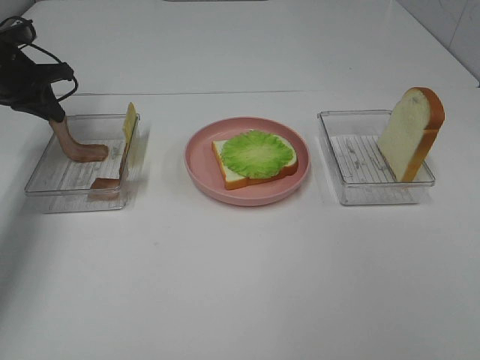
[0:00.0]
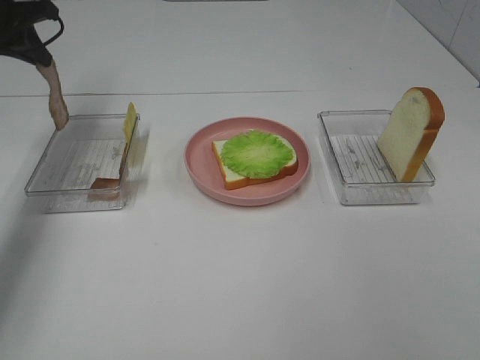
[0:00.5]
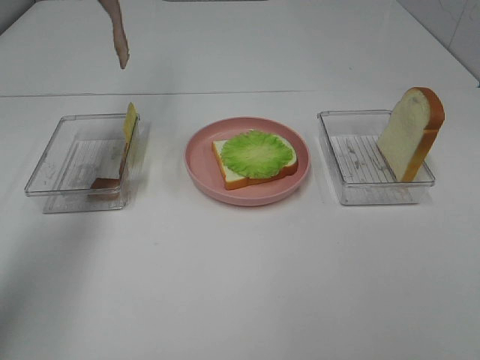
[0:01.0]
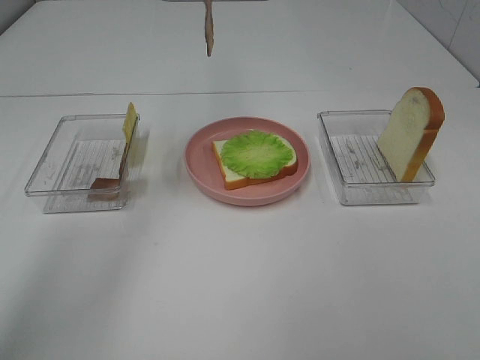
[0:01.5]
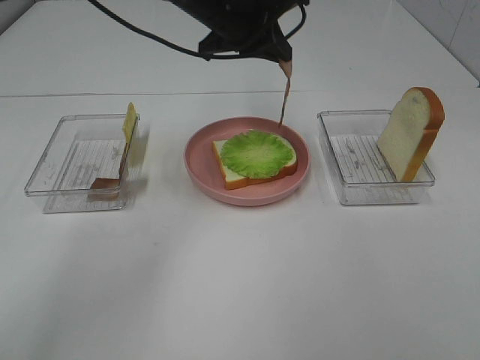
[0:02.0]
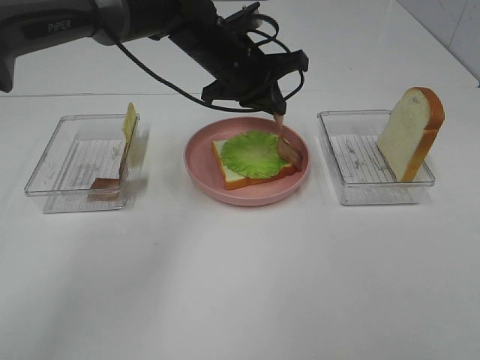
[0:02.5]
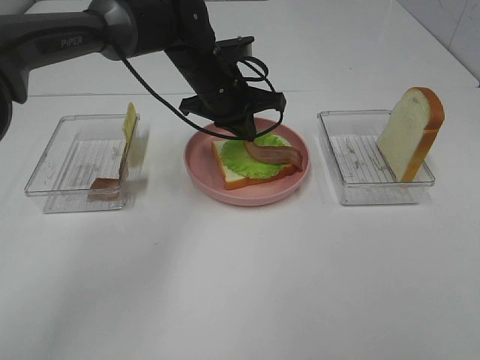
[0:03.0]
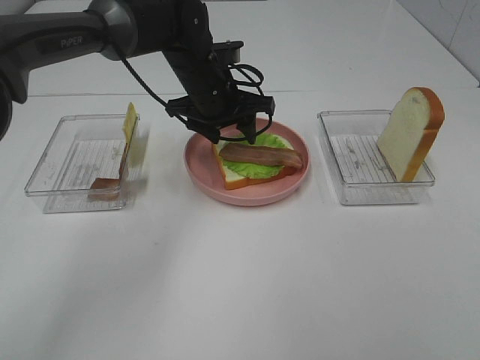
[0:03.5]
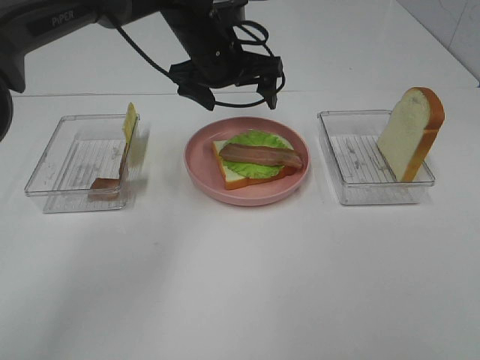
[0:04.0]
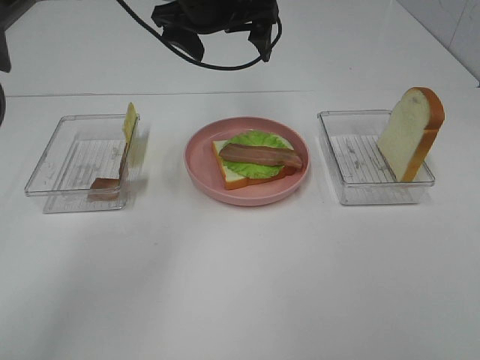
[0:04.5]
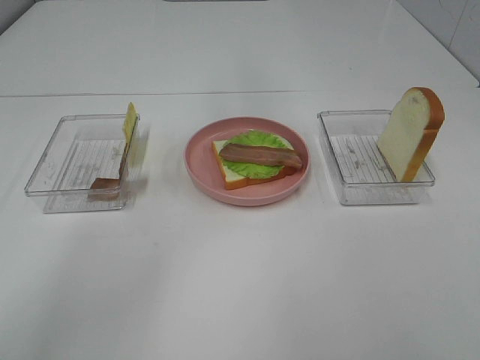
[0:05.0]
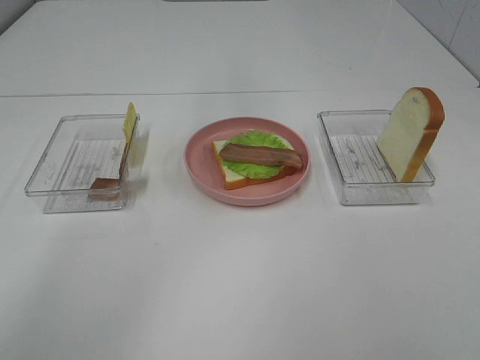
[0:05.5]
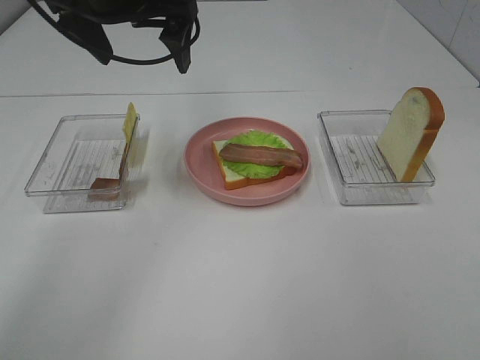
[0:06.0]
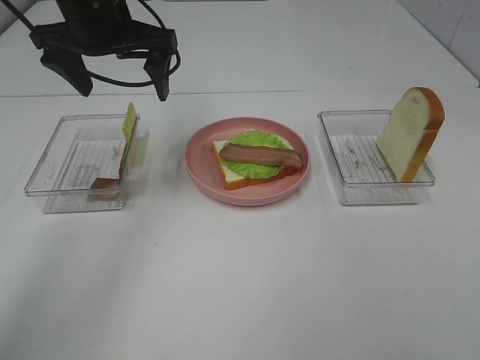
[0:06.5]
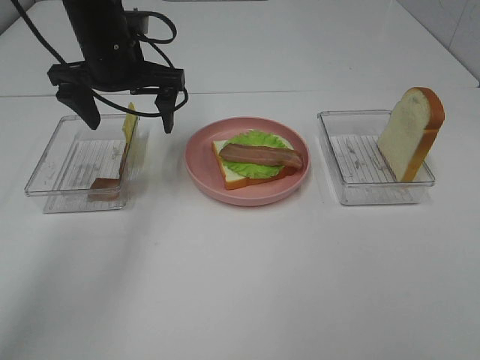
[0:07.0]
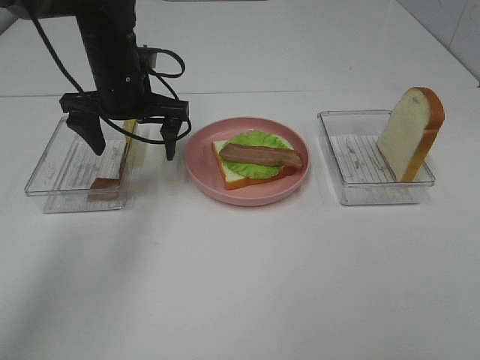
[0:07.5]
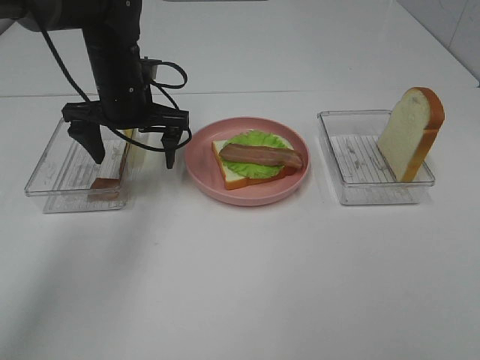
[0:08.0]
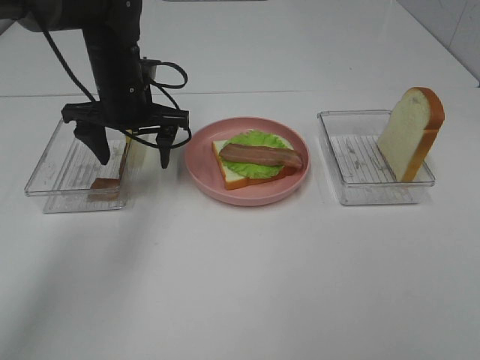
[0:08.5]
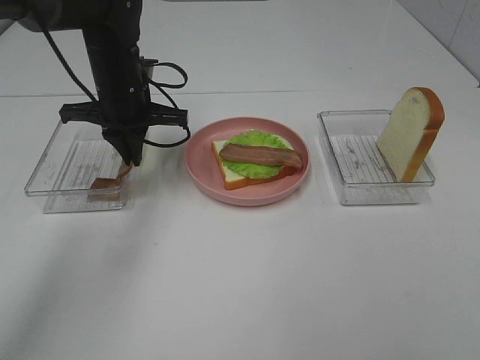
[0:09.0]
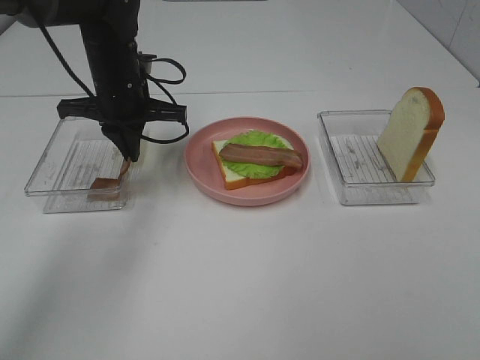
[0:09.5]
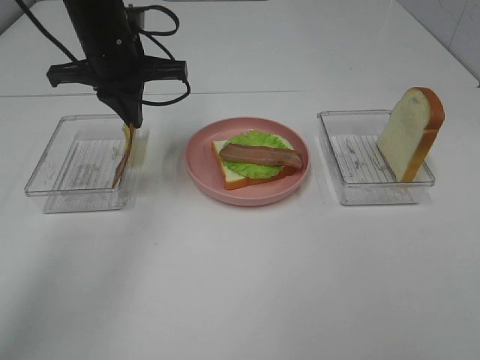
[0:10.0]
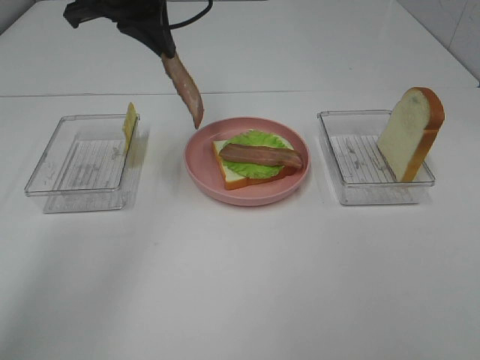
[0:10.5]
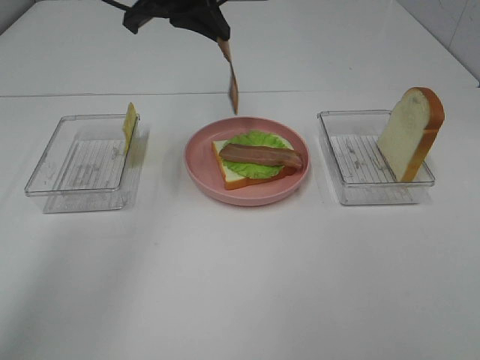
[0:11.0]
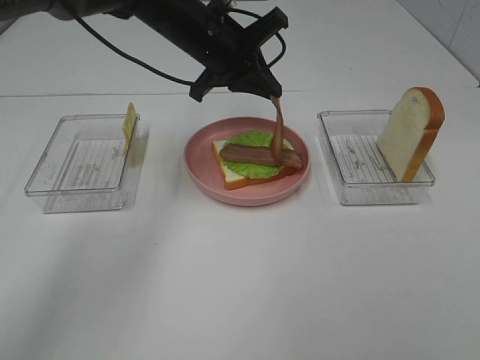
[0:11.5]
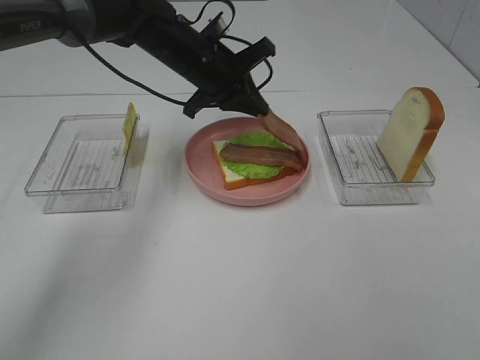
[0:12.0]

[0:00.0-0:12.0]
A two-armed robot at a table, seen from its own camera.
Task of the whole recording: Make sandwiches.
Step, 0:00.0 to 0:03.5: Left hand:place bacon on lettuce slice.
Step, 0:04.0 to 0:09.5: Left hand:grab the bacon.
0:00.0 to 0:02.0: The left gripper shifts some 30 cm to the right.
0:02.0 to 0:04.0: The left gripper opens its fingers.
0:04.0 to 0:06.0: The left gripper shifts some 15 cm upward, to the left and backward.
0:06.0 to 0:08.0: The left gripper is displaced downward by approximately 15 cm.
0:08.0 to 0:10.0: The left gripper shifts about 5 cm upward, and closes its fingers.
0:10.0 to 0:12.0: The left gripper moves to the right and downward, roughly 10 cm.

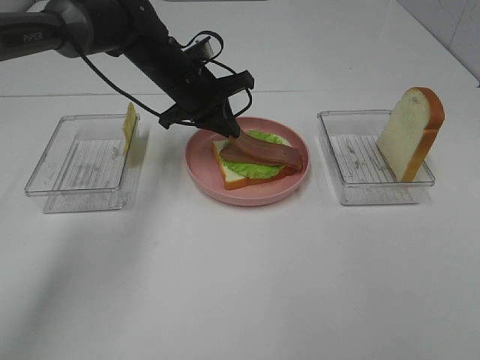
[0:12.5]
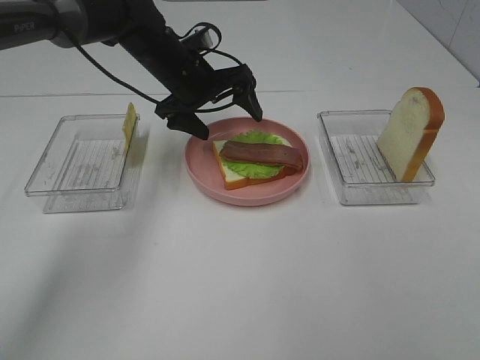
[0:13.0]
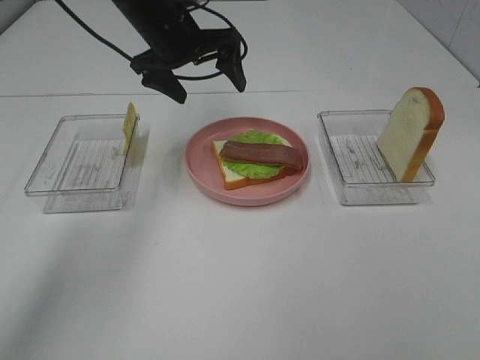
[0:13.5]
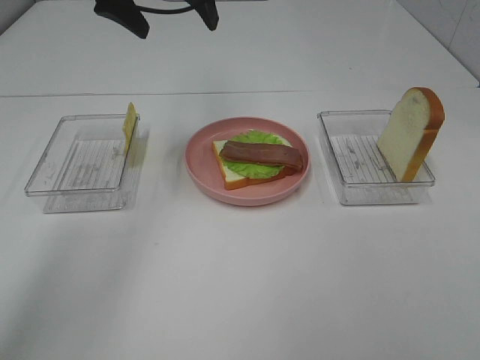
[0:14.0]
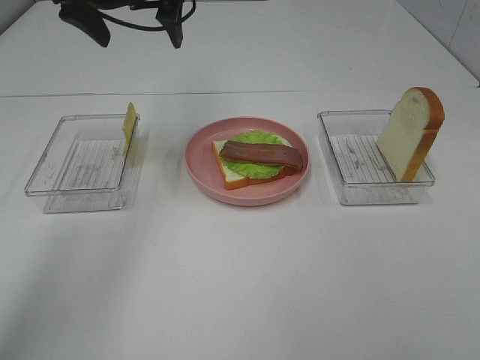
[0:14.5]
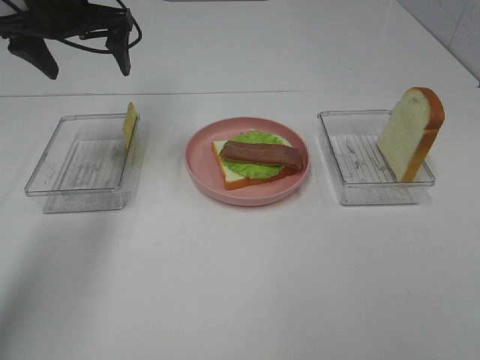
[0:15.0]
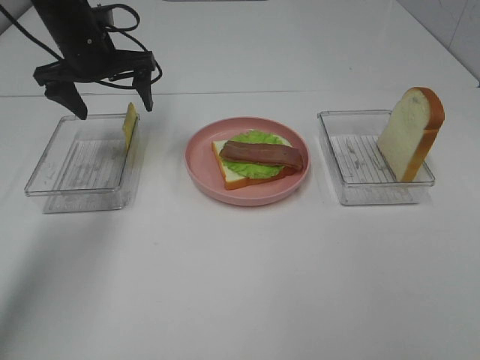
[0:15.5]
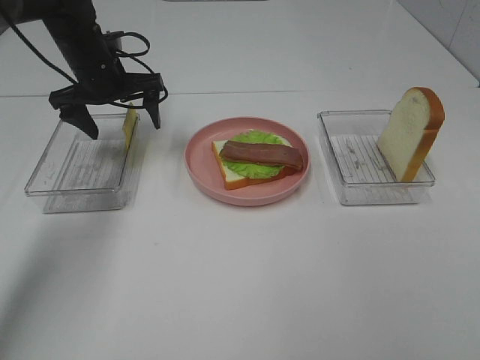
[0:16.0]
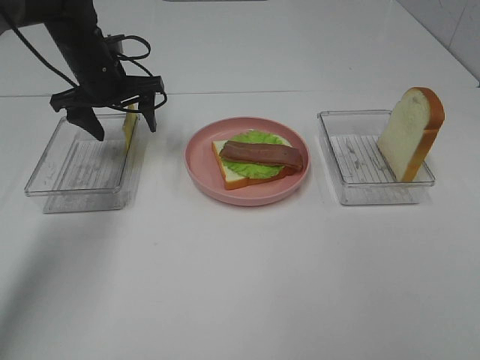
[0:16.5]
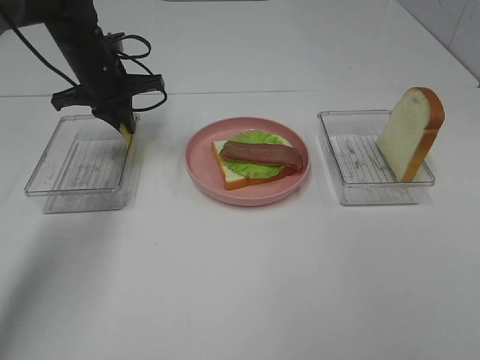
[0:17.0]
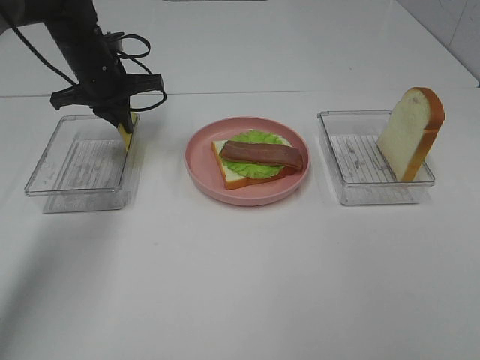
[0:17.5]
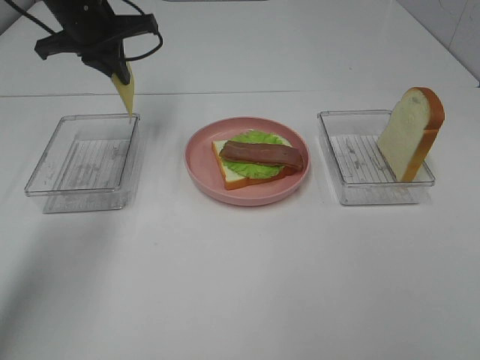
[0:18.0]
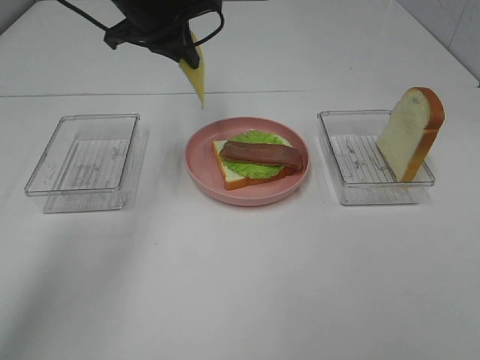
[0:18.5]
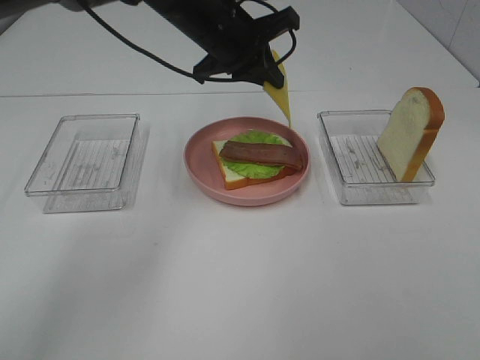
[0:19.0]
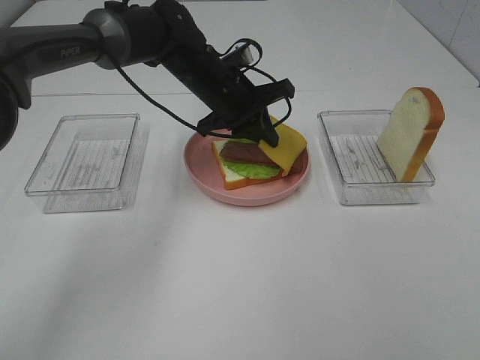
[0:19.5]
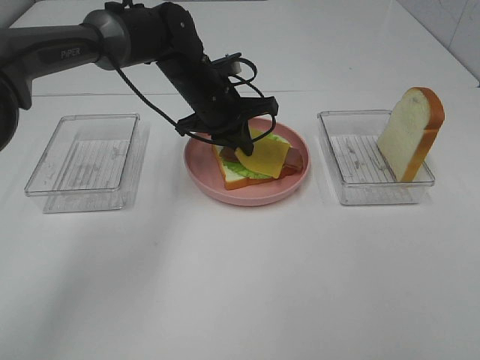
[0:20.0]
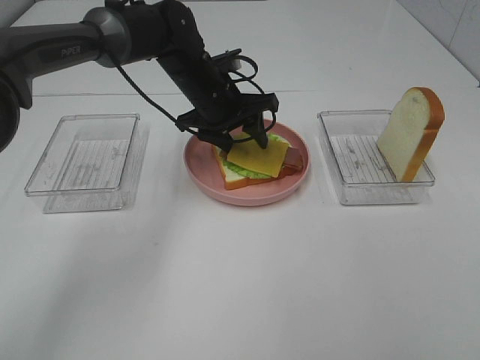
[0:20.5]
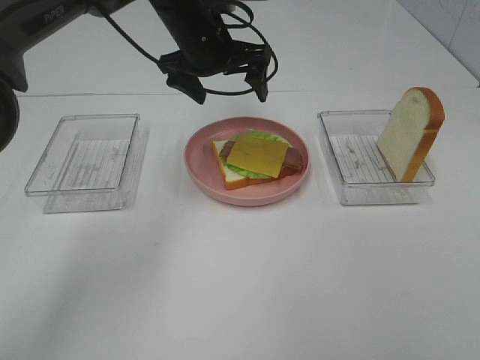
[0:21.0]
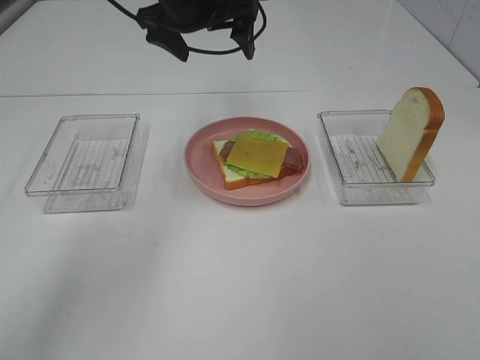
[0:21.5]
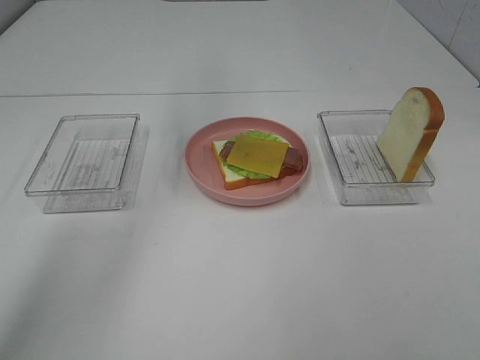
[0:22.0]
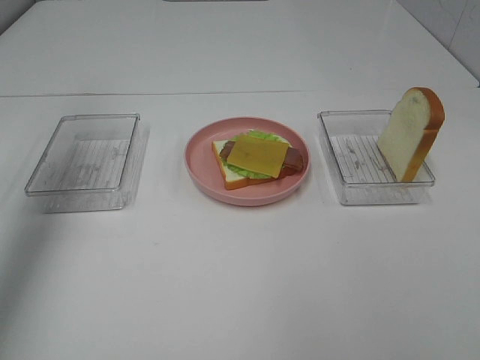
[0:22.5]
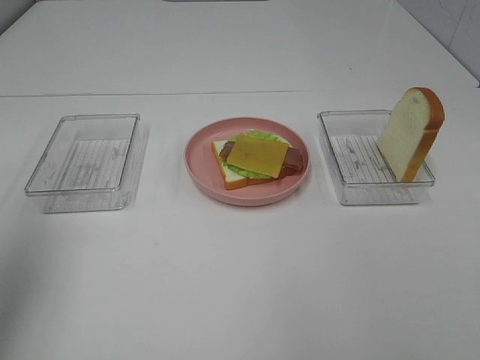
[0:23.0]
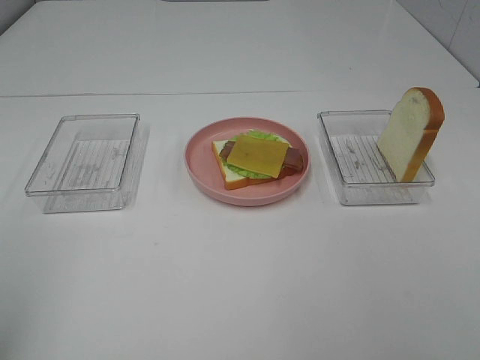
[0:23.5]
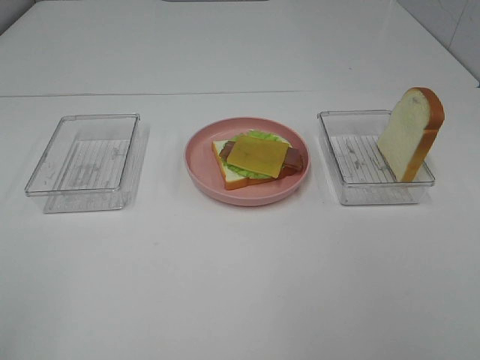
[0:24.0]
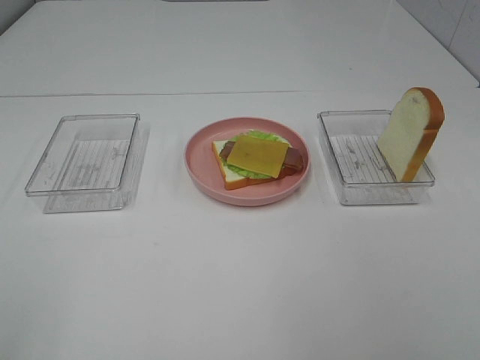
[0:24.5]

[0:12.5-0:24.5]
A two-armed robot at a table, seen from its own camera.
Task of the whole recording: Make sandwiches.
Step, 0:13.5 to 0:17.0: Left hand:grab the cheese slice.
Step, 0:17.5 to 0:20.5: Left hand:place the cheese slice on top of the bacon.
0:12.5 to 0:14.5: The left gripper travels upward and to the left by approximately 15 cm, and opens.
0:14.5 to 0:16.5: The left gripper is displaced downward by approximately 15 cm.
0:16.5 to 0:18.5: The left gripper shifts roughly 15 cm upward and to the right, and closes up.
0:18.5 to 0:20.5: The left gripper moves downward and to the right, about 15 cm, and opens up.
0:20.5 to 0:22.5: The left gripper travels to the left, upward and backward by roughly 40 cm.
0:22.5 to 0:24.5: The left gripper heads backward, covering some 35 cm.

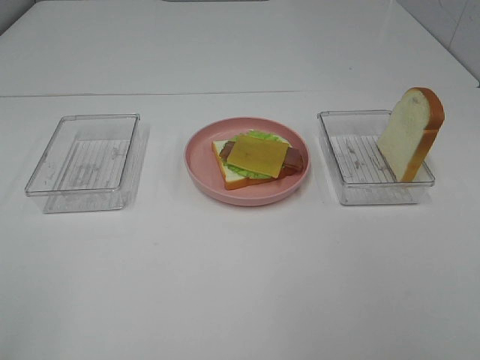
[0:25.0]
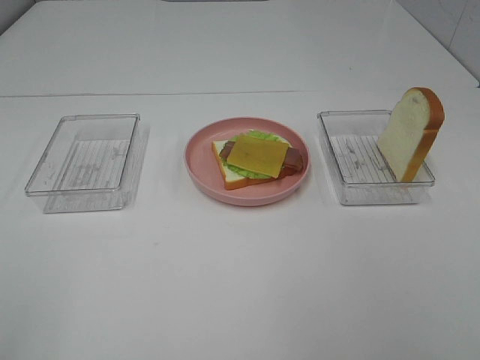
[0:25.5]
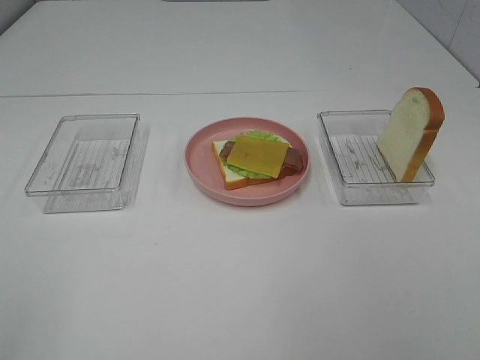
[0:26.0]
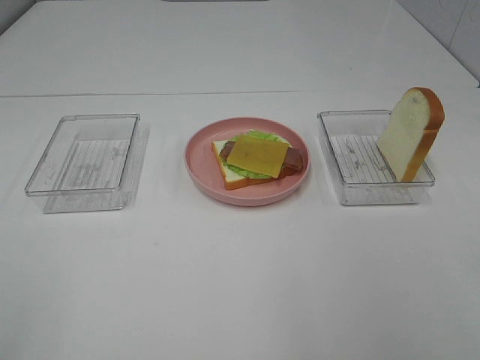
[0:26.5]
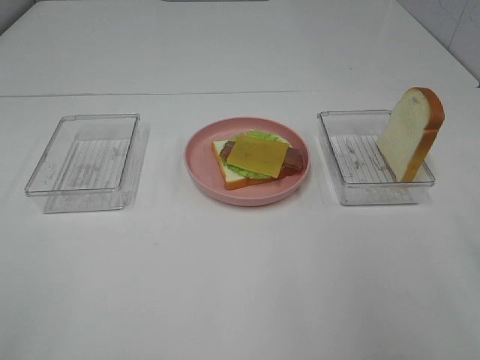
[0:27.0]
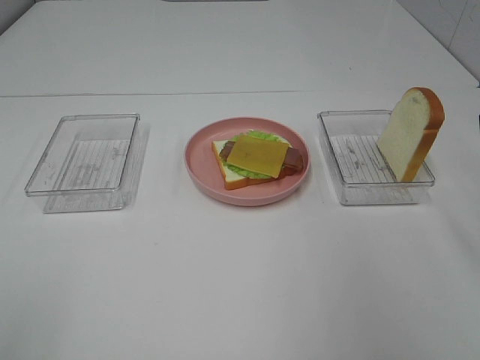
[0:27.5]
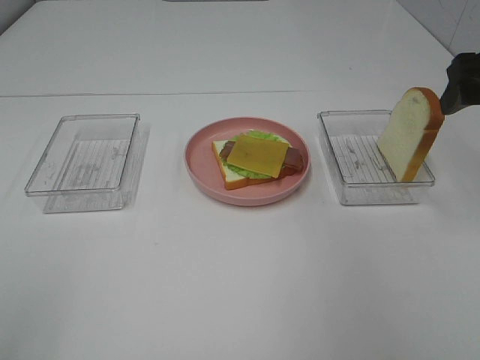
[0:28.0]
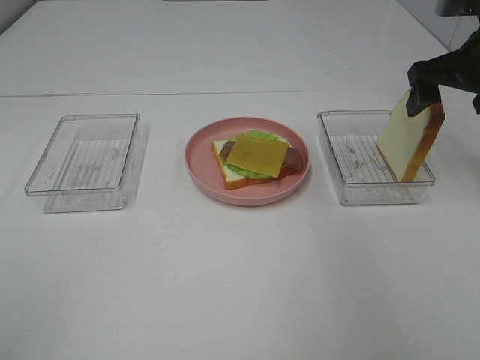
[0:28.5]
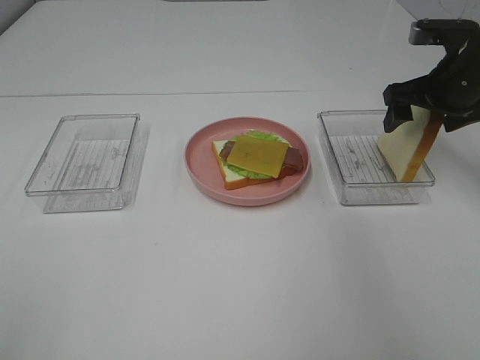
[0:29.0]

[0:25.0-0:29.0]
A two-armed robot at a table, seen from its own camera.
Task of the whole recording: Make sandwiches.
0:27.0 to 0:29.0: The right gripper travels forward by some 25 cm.
